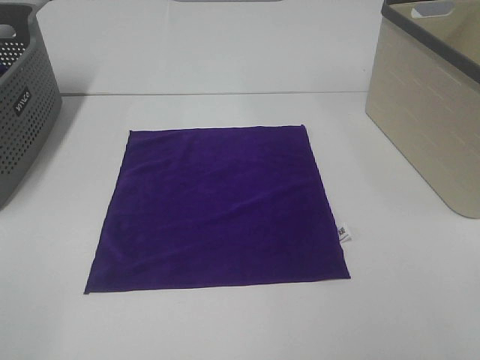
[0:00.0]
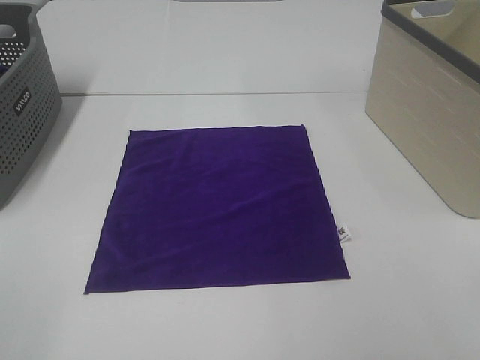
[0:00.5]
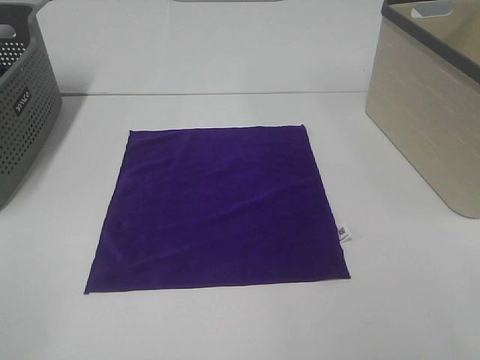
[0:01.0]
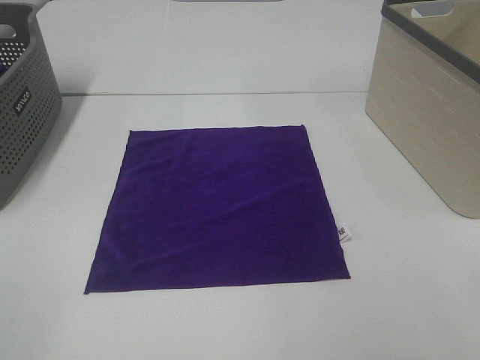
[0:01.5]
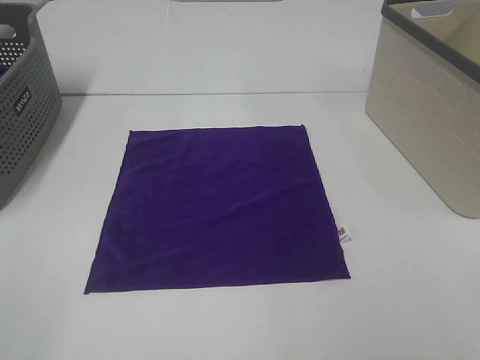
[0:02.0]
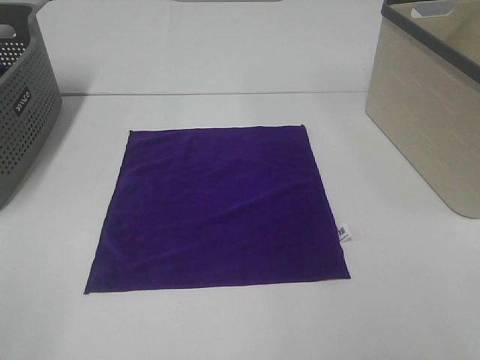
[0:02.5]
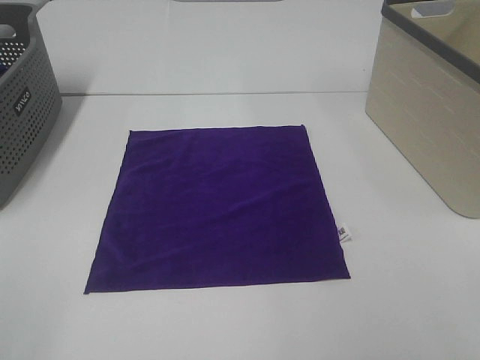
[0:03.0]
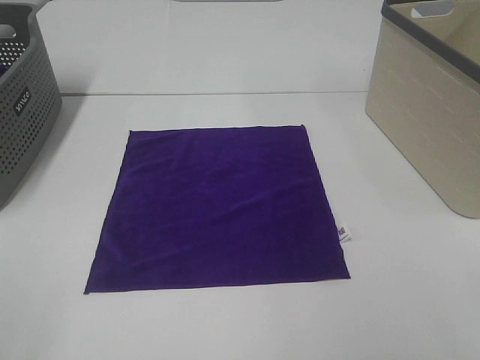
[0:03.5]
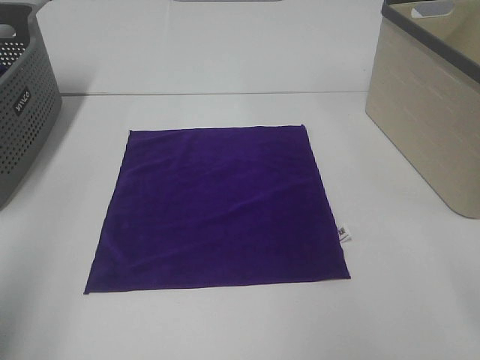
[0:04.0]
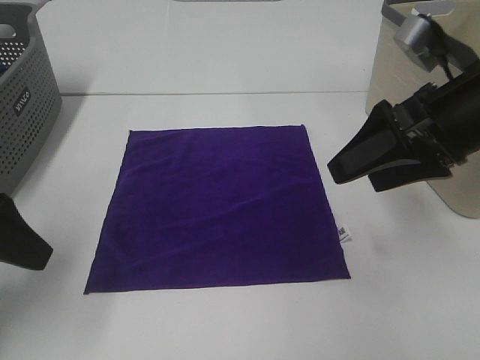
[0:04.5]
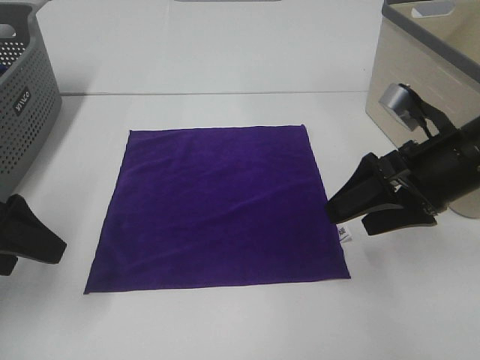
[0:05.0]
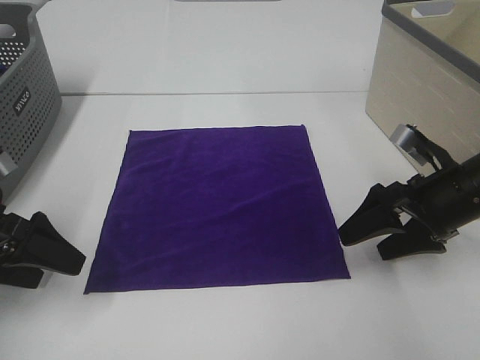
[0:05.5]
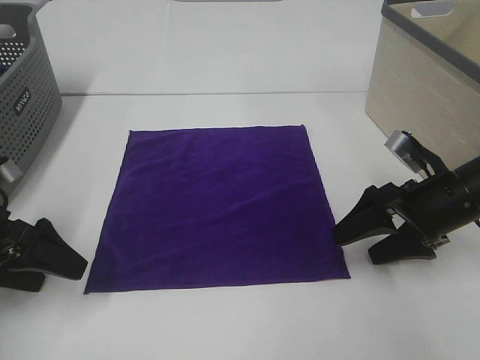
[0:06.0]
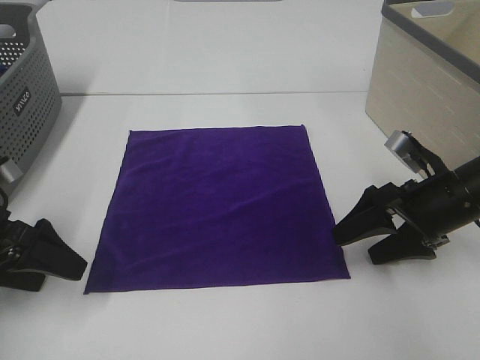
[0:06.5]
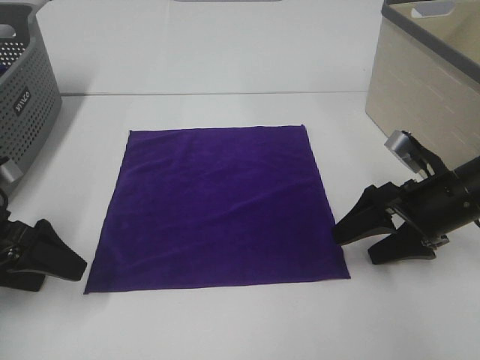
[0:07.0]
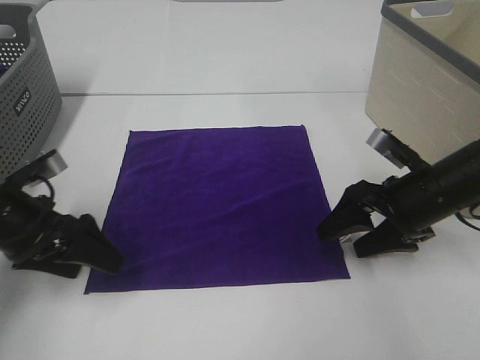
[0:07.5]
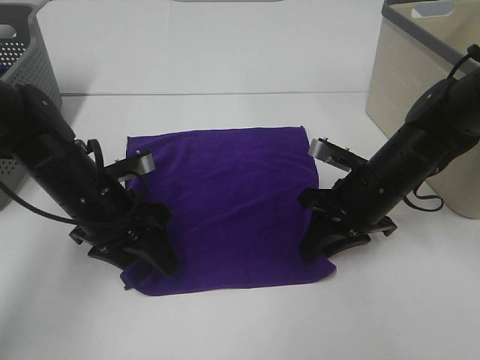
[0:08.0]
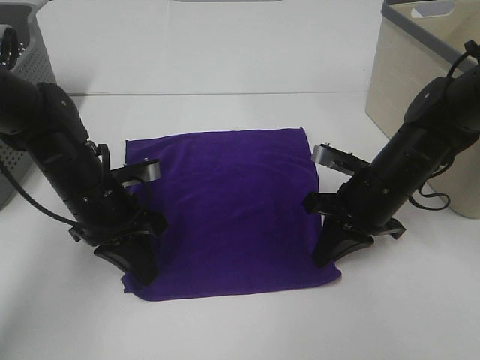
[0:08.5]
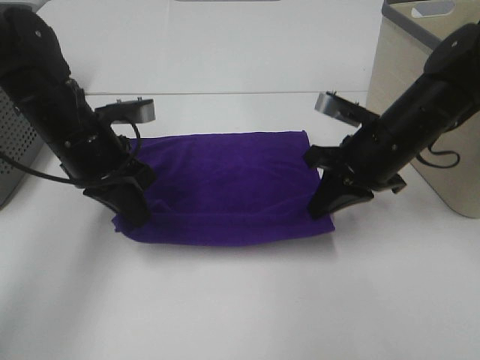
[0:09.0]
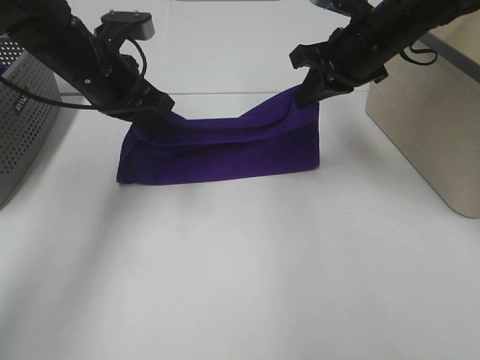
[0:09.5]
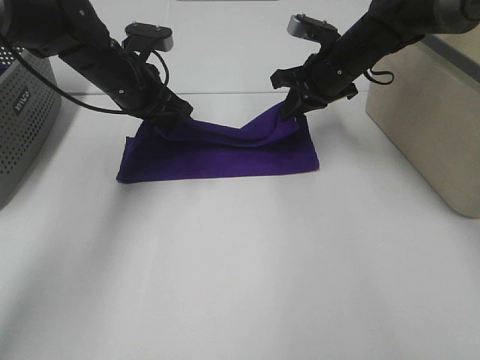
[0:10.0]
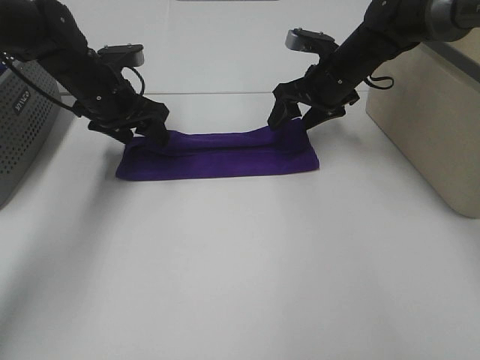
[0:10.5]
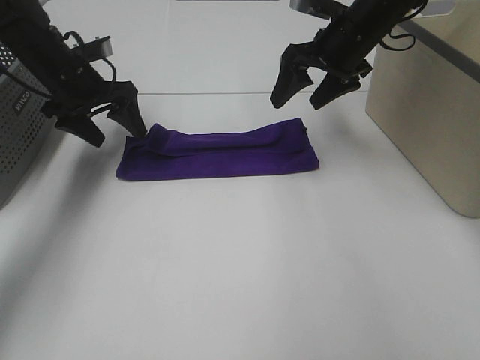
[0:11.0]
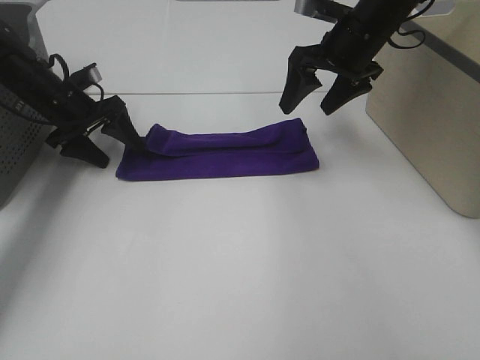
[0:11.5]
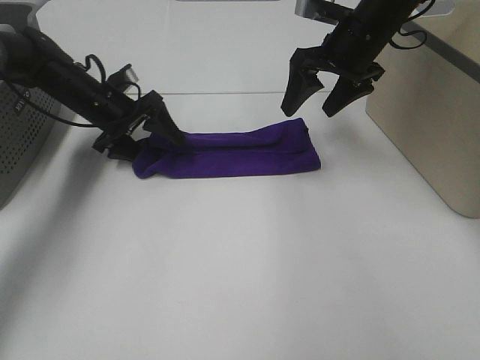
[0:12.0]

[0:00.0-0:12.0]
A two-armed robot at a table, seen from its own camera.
Task of the whole recording: Fold towels.
Step, 0:00.0 to 0:08.0: Left hand: grab the bottom left corner of purple towel.
Step, 0:00.0 to 0:08.0: Right hand: grab the bottom right corner of purple towel.
Step, 0:08.5 to 0:10.0: Left hand: fold the purple towel up.
Step, 0:08.5 to 0:10.0: Right hand: fold the purple towel up.
0:00.0 to 0:02.0: Neither gripper changes place.
0:02.0 to 0:04.0: The left gripper goes some 10 cm forward.
0:04.0 to 0:06.0: Both grippers travel together downward and forward, some 25 cm.
0:06.0 to 0:08.0: The left gripper heads to the right and forward, covering some 15 cm, and closes. The right gripper heads to the left, covering roughly 10 cm, and closes its fingers.
0:08.0 to 0:10.0: Both grippers travel together forward and upward, about 20 cm. The left gripper closes.
0:10.0 to 0:12.0: The left gripper moves downward and to the left, roughly 10 cm, and opens up; the right gripper travels upward by roughly 5 cm, and opens its fingers.

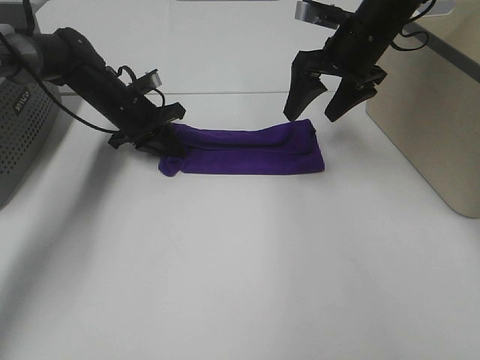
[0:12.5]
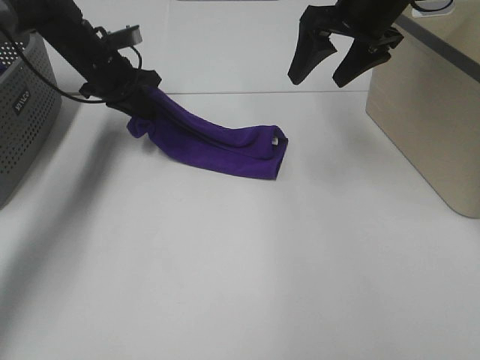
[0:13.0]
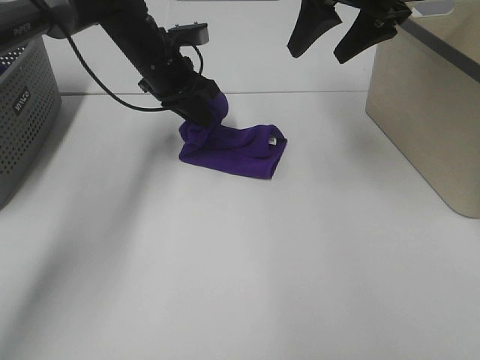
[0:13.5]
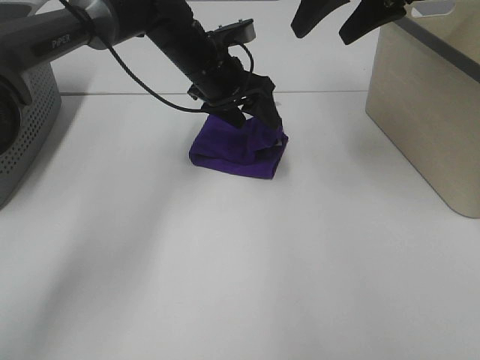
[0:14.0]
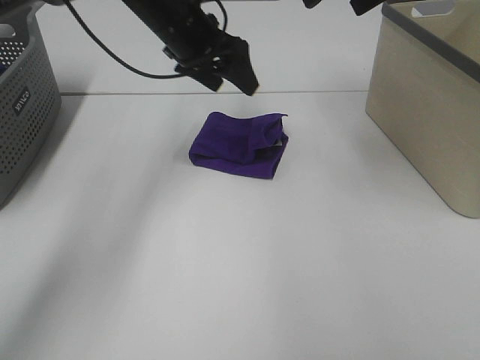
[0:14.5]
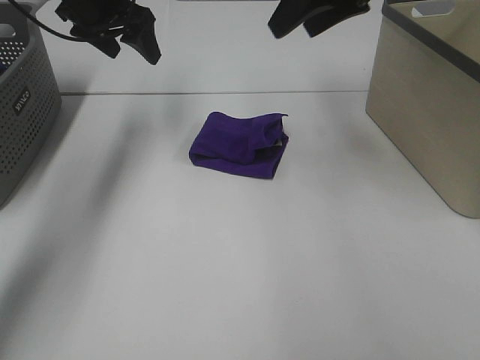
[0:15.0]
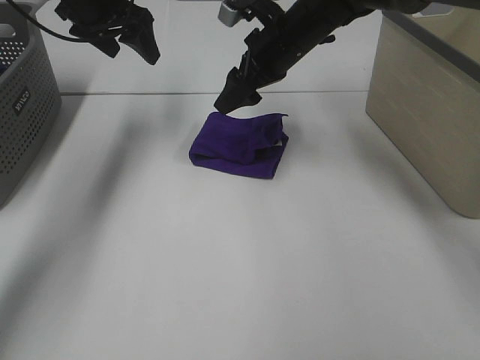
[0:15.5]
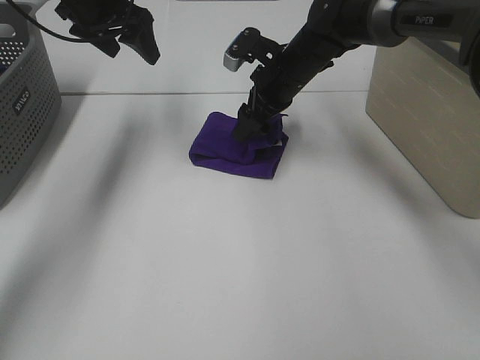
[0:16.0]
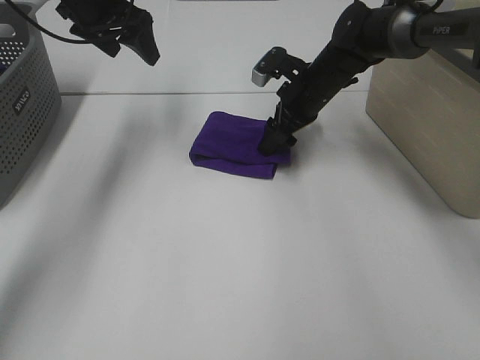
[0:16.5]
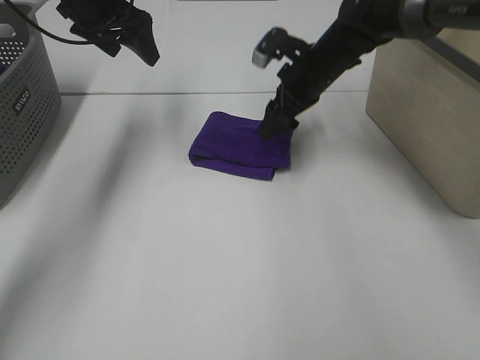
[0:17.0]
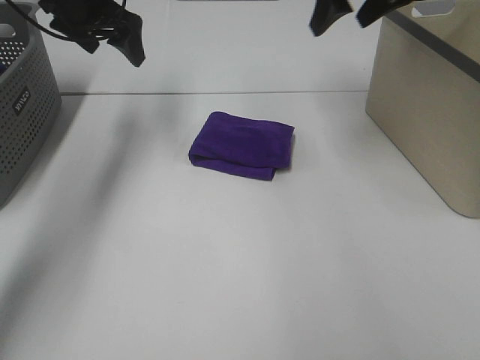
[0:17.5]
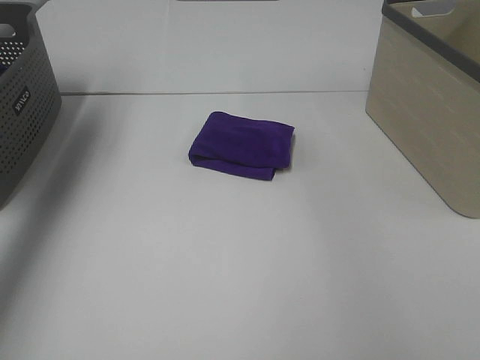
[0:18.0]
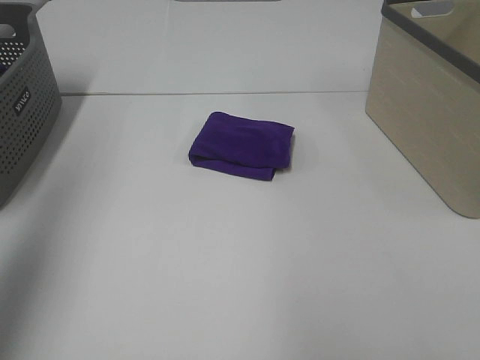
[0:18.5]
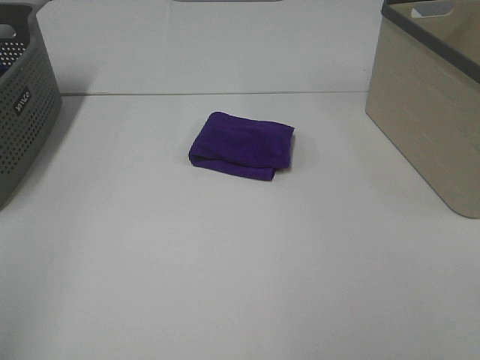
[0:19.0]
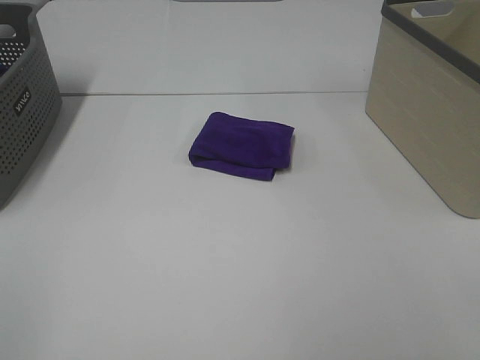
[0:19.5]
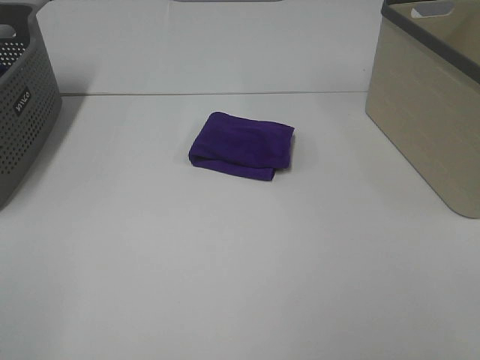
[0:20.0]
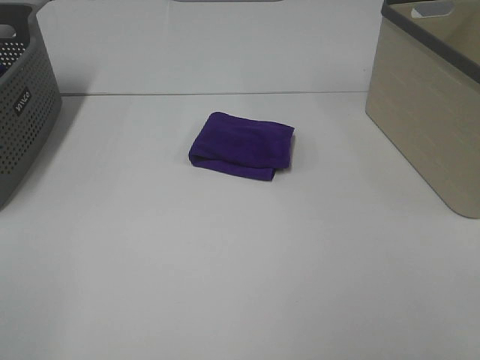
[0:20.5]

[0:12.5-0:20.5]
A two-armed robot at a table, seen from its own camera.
Task of the whole recording: Fold towels.
Step, 0:14.0 to 0:16.5: Right hand: adjust the purple towel.
0:12.5 to 0:14.5: The right gripper moves upward, roughly 15 cm. The left gripper is displaced upward and to the right by approximately 15 cm, and opens up.
0:14.5 to 0:16.5: The left gripper heads to the left, covering roughly 10 cm, while the right gripper moves downward, roughly 25 cm.
0:16.5 to 0:18.5: The right gripper shifts about 50 cm backward, upward and to the right, while the left gripper moves backward, upward and to the left, roughly 35 cm.
0:18.5 to 0:20.5: The left gripper shifts approximately 25 cm backward and downward.

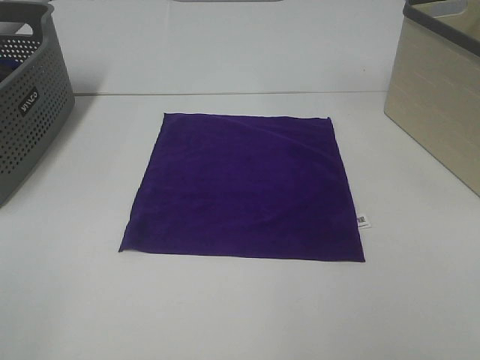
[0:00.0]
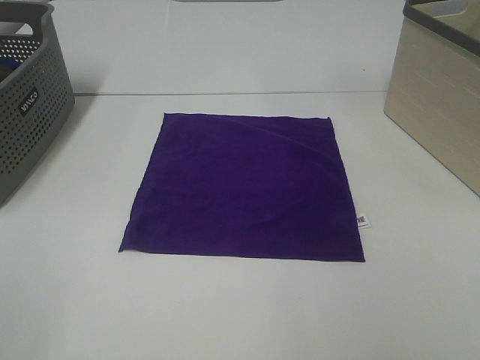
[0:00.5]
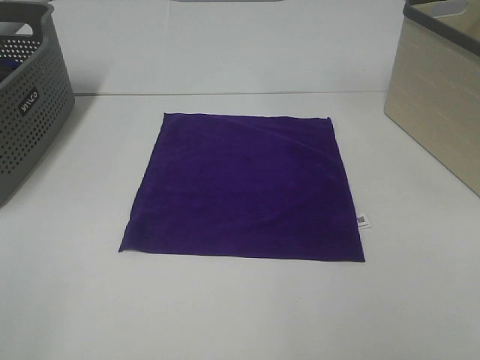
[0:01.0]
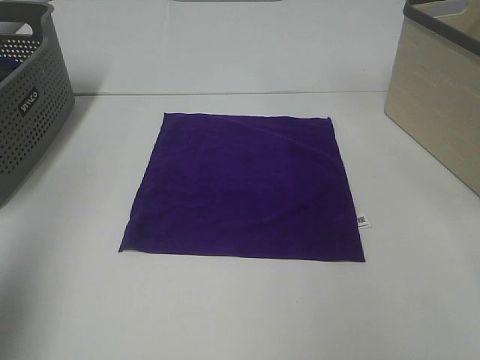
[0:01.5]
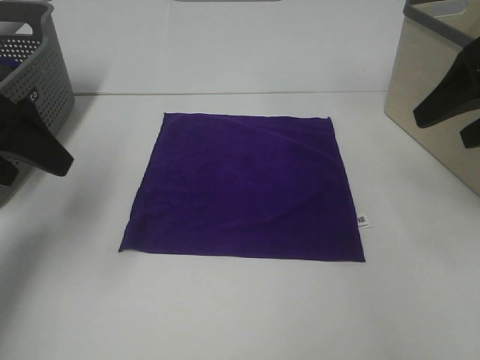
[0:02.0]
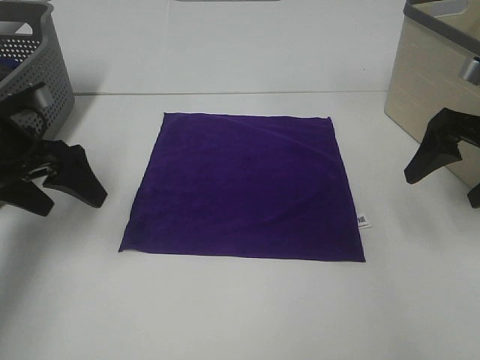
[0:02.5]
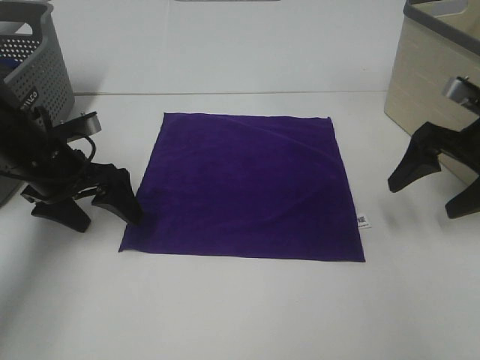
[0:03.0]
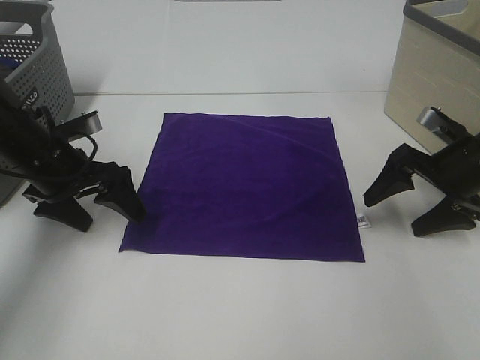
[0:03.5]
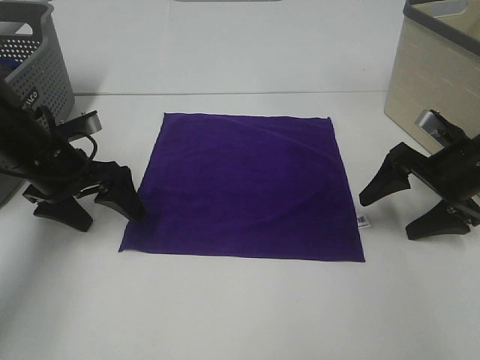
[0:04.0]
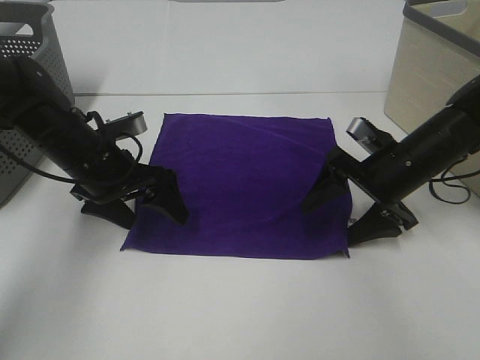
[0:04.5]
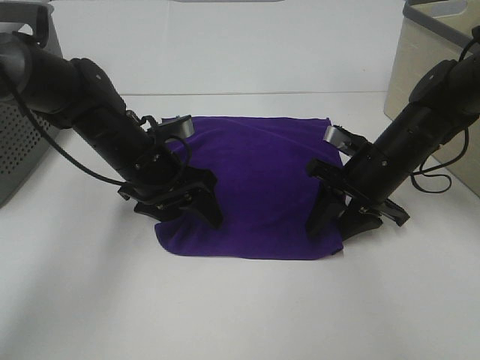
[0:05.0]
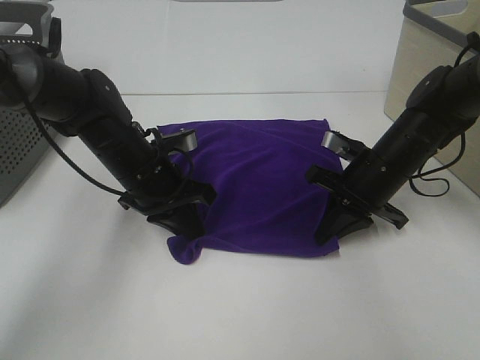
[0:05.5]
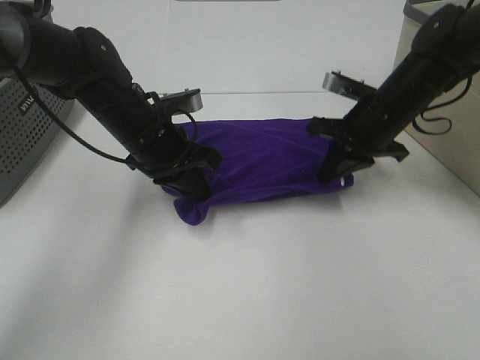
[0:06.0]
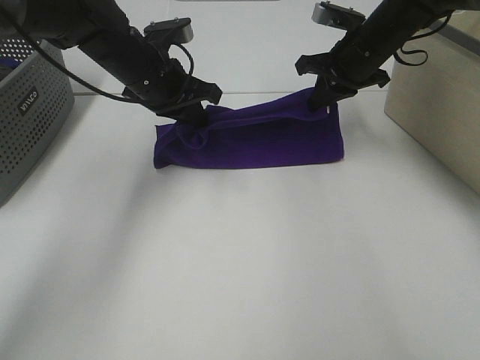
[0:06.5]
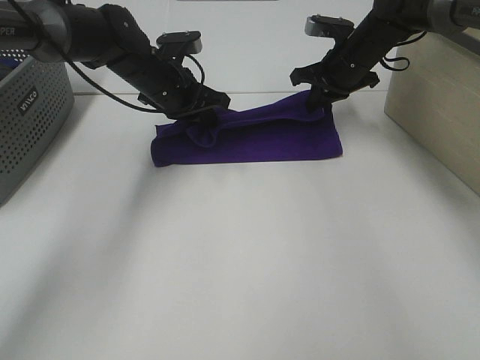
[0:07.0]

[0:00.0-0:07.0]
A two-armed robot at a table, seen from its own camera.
Task of the whole recording: Fold towels.
Step, 0:00.0 to 0:05.0: Left hand: grab the bottom left corner of purple towel.
Step, 0:00.0 to 0:05.0: Right hand: grab the bottom right corner of purple towel.
Step, 0:05.5 to 0:06.5: Left hand: fold the purple towel up.
Step, 0:05.5 to 0:06.5: Right hand: fold the purple towel up.
0:00.0 to 0:02.0: Both grippers travel together forward, some 30 cm.
0:02.0 to 0:03.5: The left gripper travels downward and forward by about 15 cm. Meanwhile the right gripper shifts about 15 cm downward.
0:03.5 to 0:05.0: The left gripper shifts roughly 10 cm to the right. The right gripper shifts some 10 cm to the left, and closes up.
0:05.0 to 0:07.0: The right gripper travels forward and upward by approximately 20 cm, and closes. Meanwhile the left gripper is displaced forward by about 10 cm, and closes its fingers.
